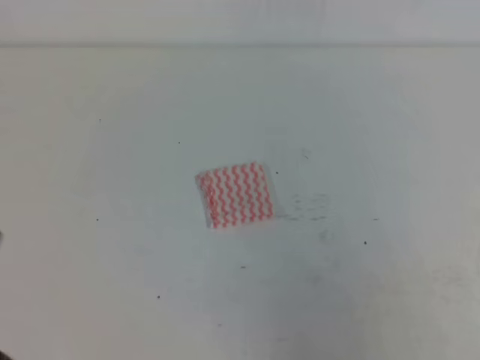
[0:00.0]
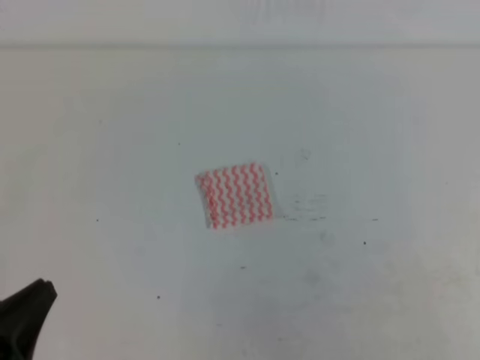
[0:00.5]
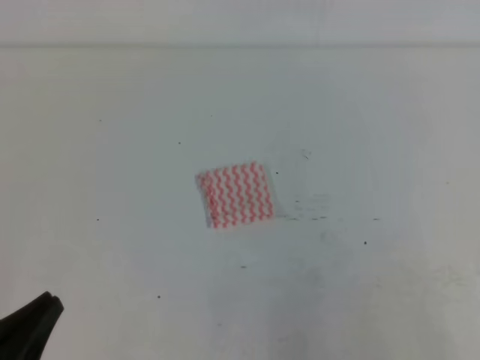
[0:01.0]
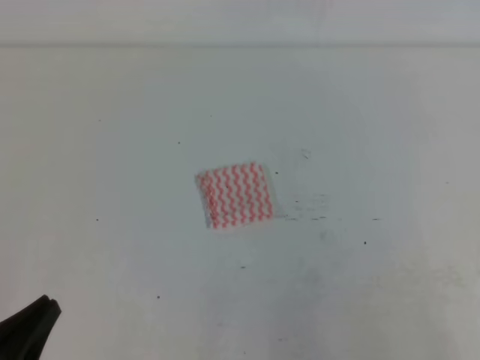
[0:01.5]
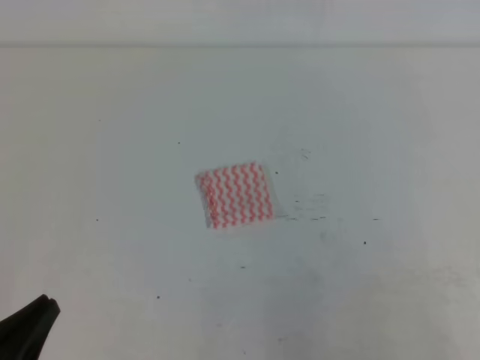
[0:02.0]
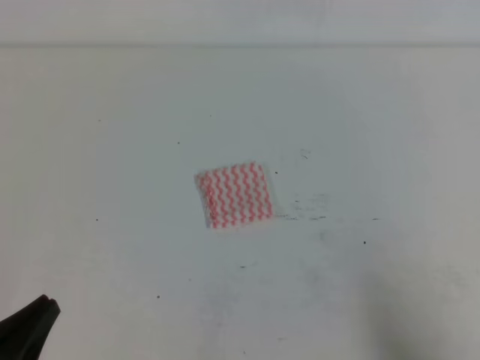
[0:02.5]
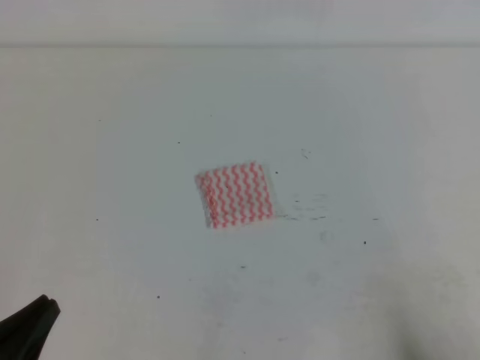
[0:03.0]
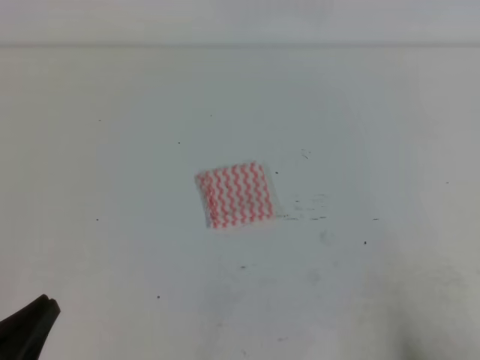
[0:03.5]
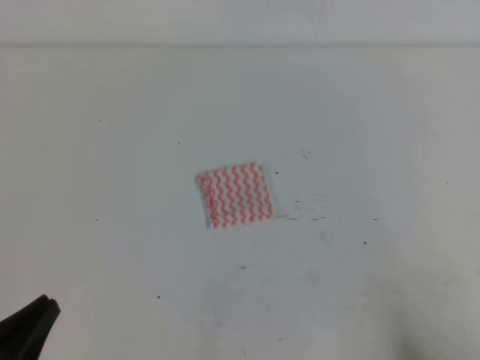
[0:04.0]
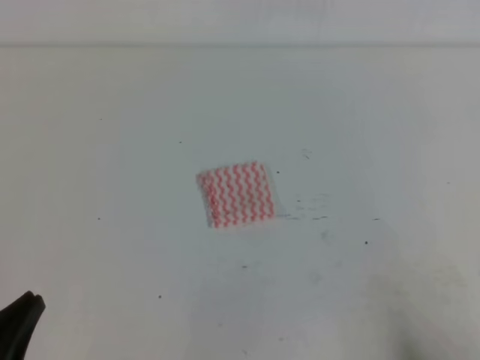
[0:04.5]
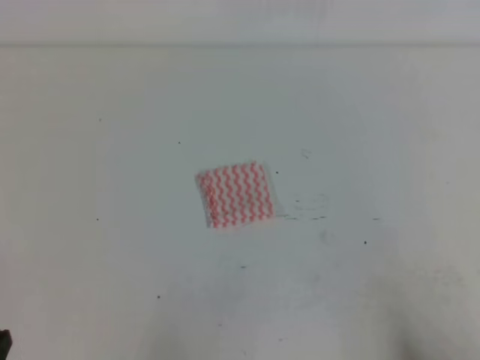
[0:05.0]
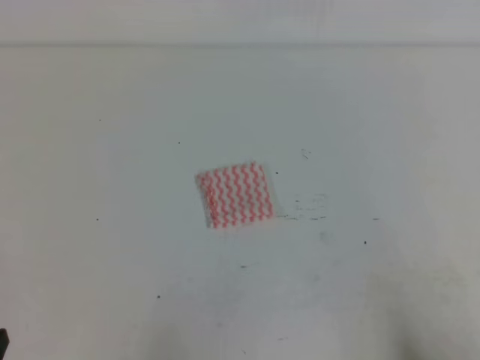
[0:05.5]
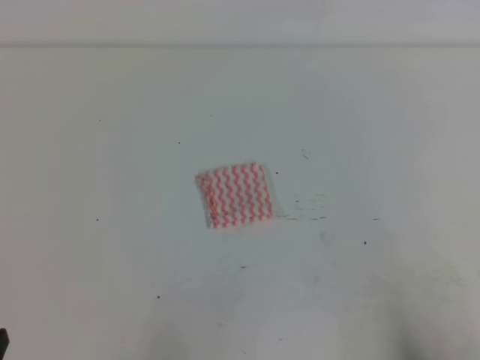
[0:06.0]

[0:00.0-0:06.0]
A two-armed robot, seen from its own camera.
Step, 0:00.0 to 0:06.0: Fold the towel.
0:00.0 to 0:02.0: The left gripper moves downward, about 10 cm.
